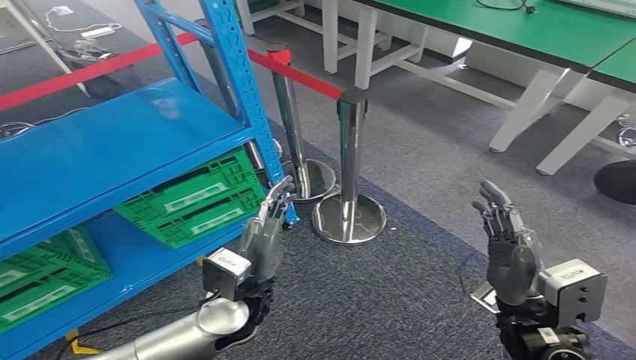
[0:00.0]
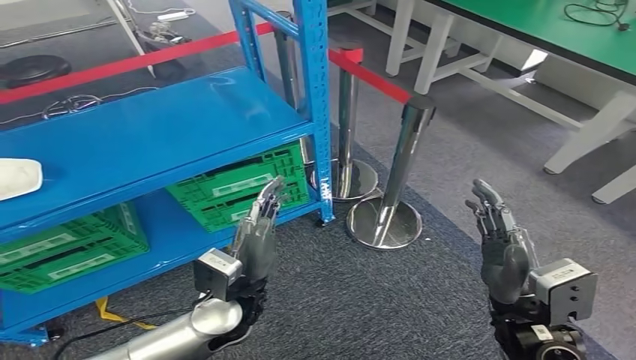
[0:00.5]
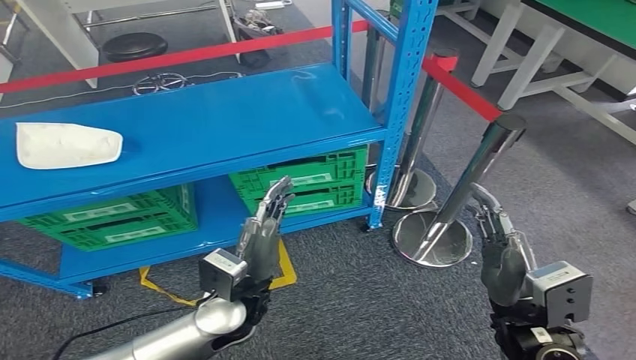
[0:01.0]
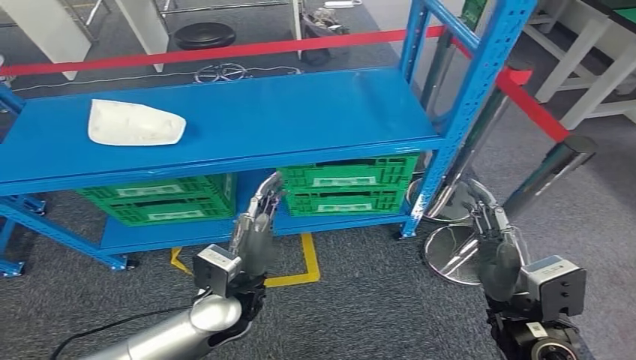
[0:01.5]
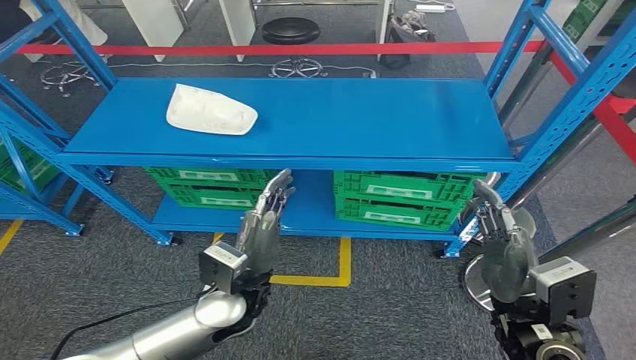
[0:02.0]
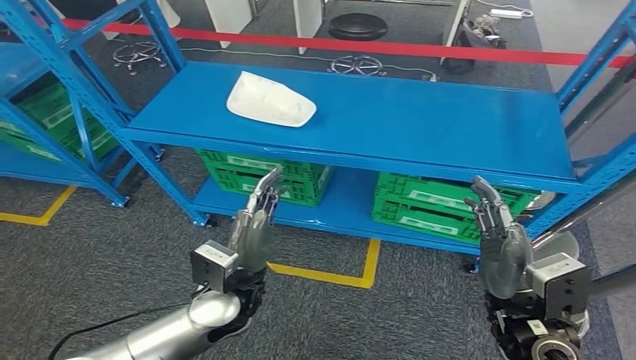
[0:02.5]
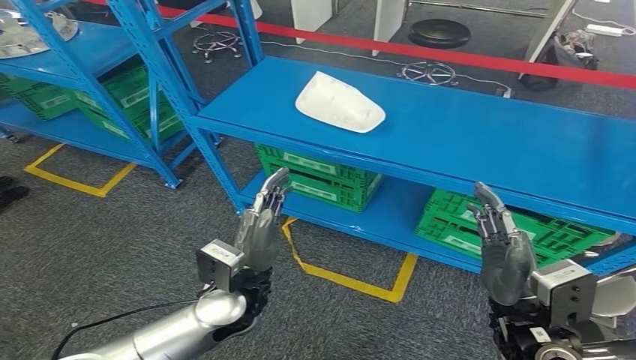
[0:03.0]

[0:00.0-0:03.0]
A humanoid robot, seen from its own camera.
Step, 0:00.0 to 0:03.0: Return to the initial position at the workbench.

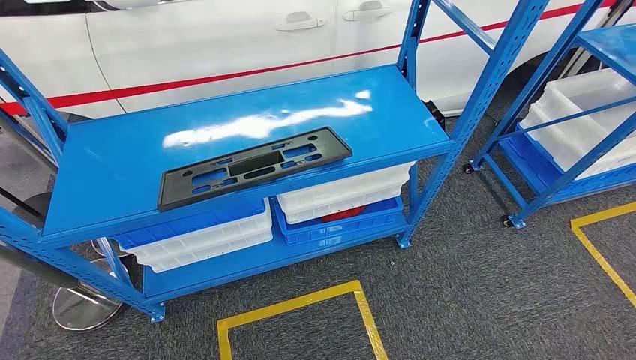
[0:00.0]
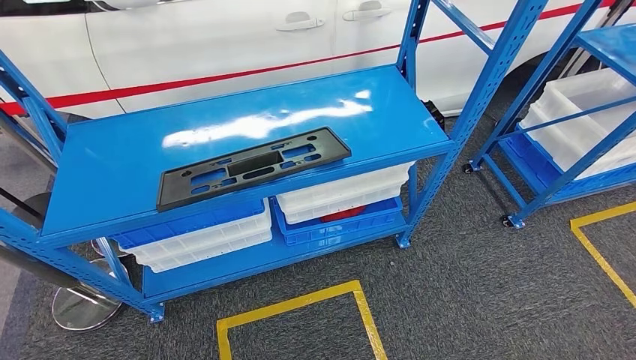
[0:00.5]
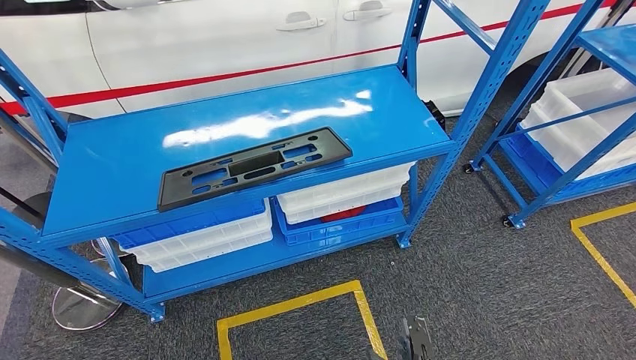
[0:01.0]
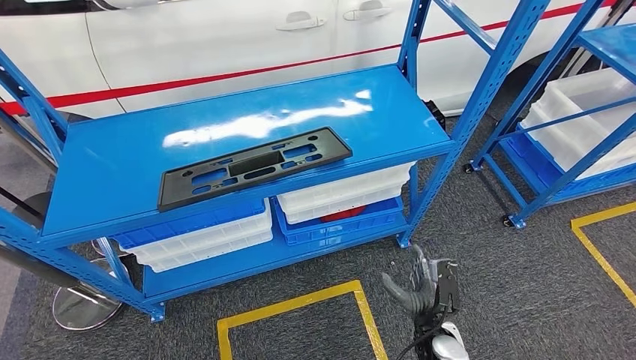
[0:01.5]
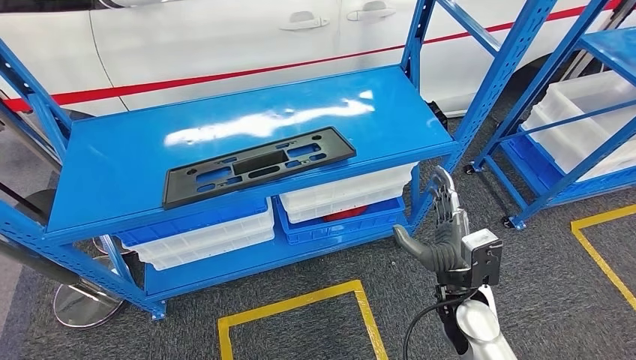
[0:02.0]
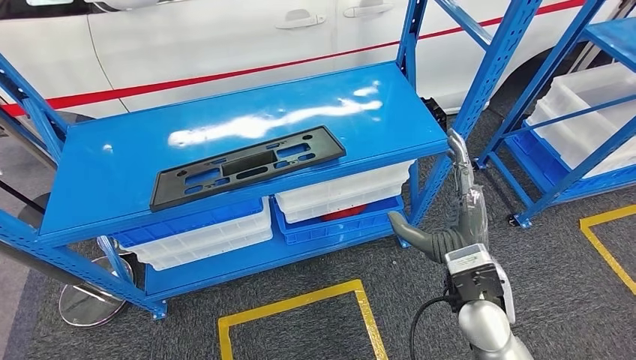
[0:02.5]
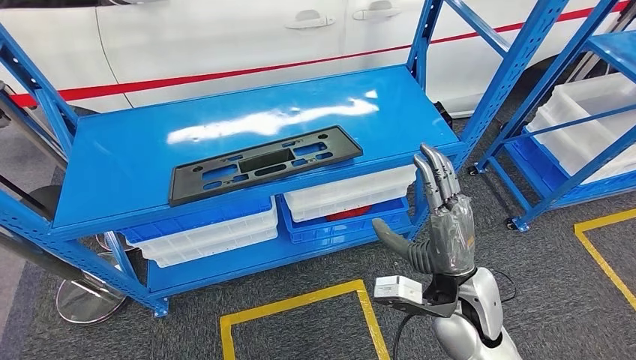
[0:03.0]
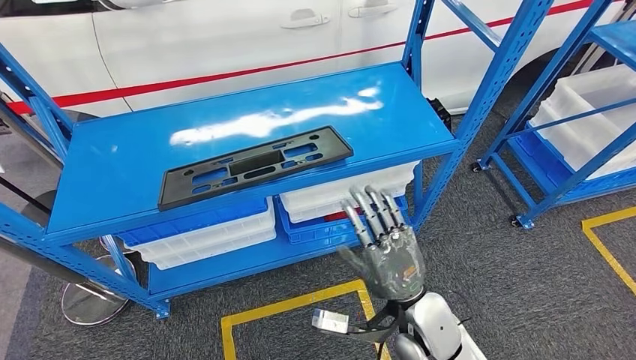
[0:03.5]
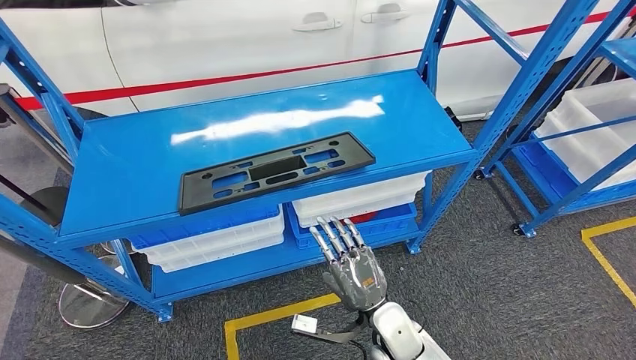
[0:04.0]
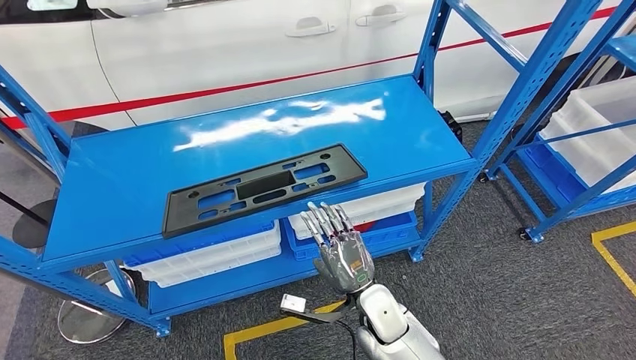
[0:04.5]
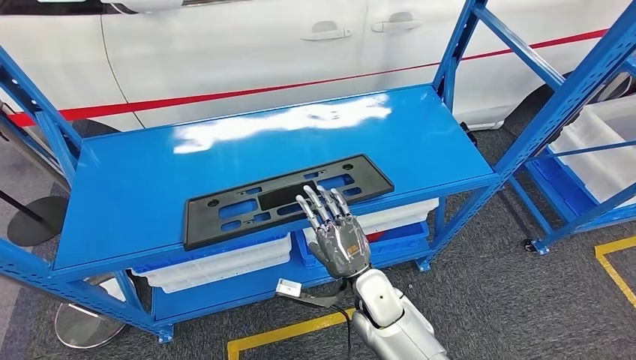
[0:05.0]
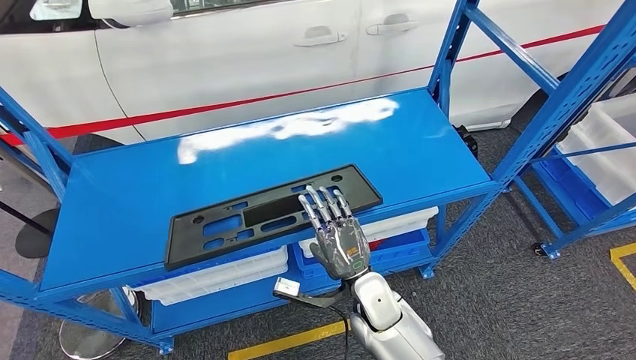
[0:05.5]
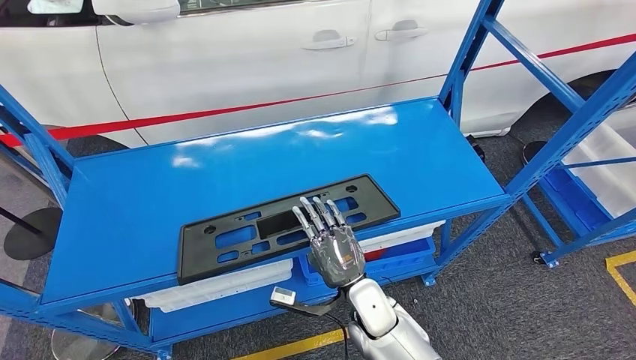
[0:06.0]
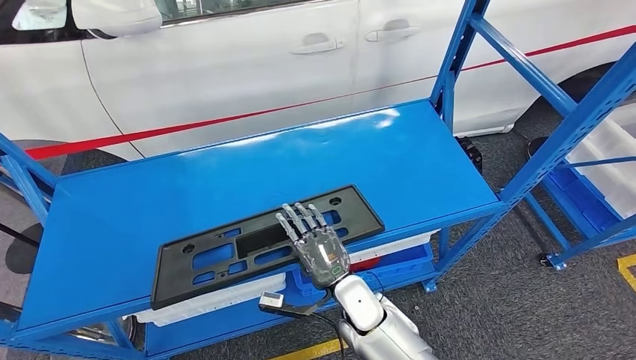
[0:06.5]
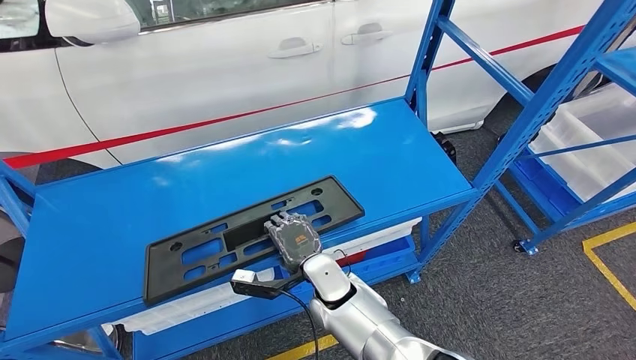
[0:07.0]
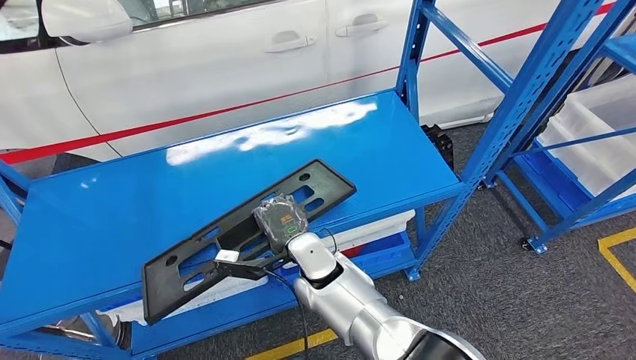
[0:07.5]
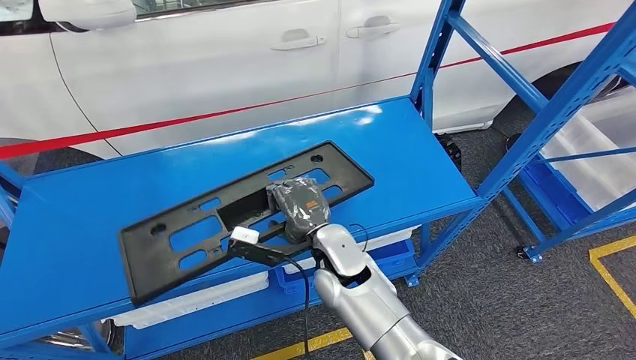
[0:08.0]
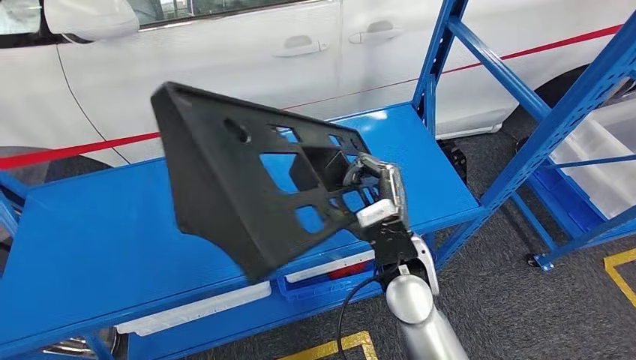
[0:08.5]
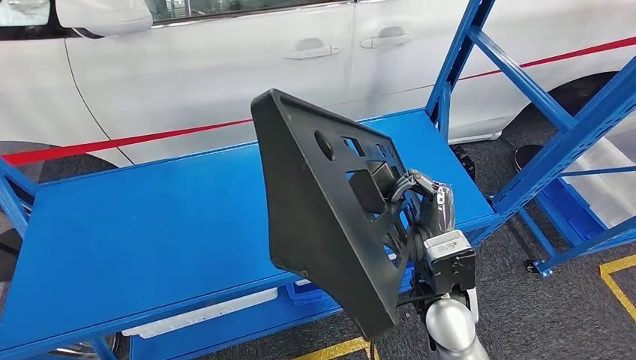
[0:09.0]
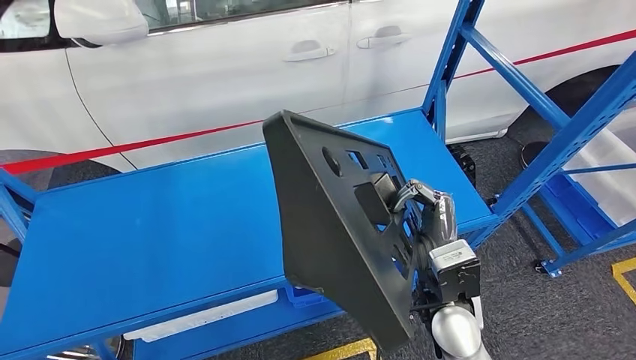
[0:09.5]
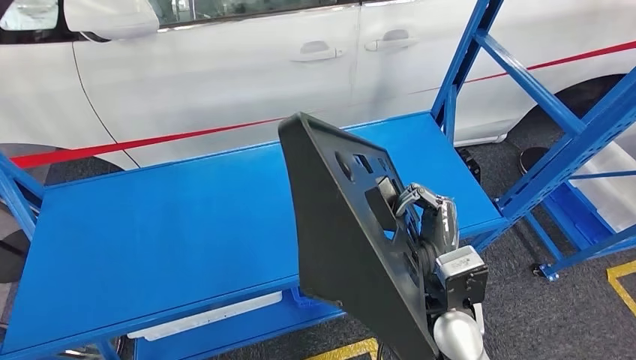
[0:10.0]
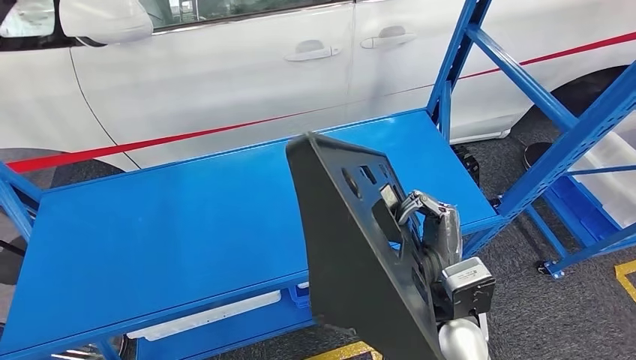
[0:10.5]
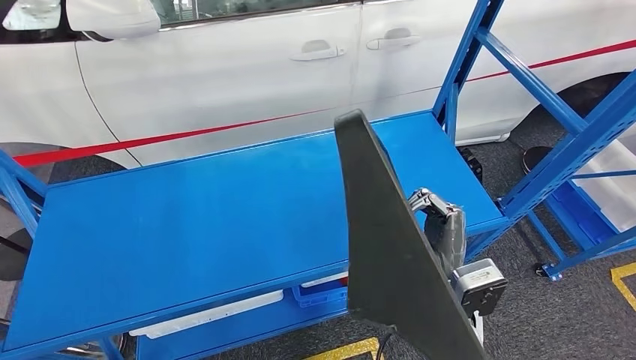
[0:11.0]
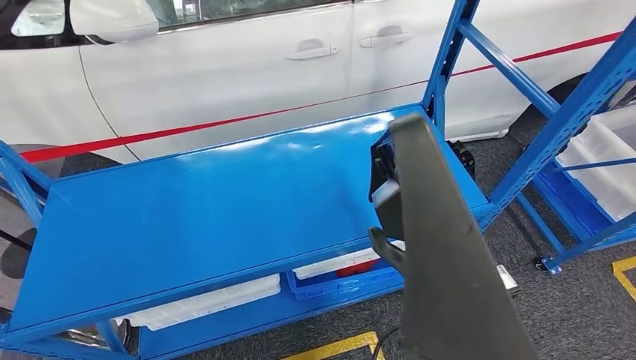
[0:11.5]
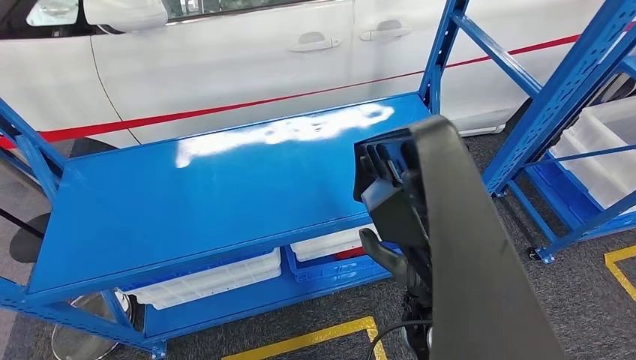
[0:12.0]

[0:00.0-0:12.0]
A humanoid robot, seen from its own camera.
Step, 0:00.0 to 0:08.5: Pick up the large parts from the shelf.

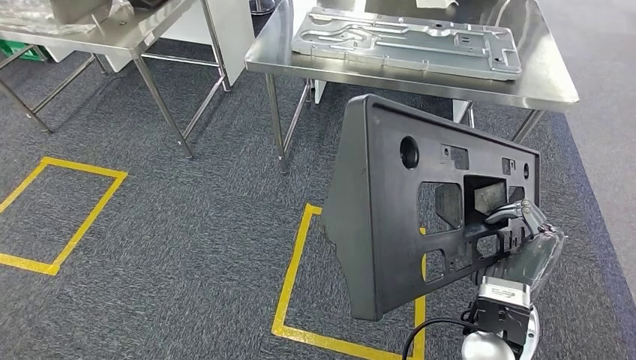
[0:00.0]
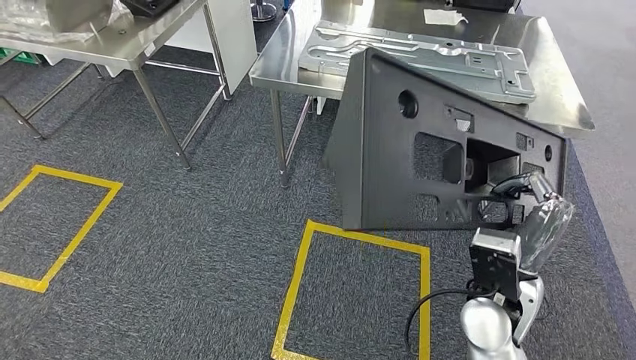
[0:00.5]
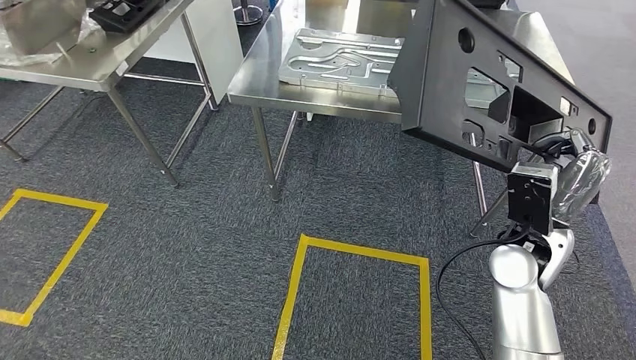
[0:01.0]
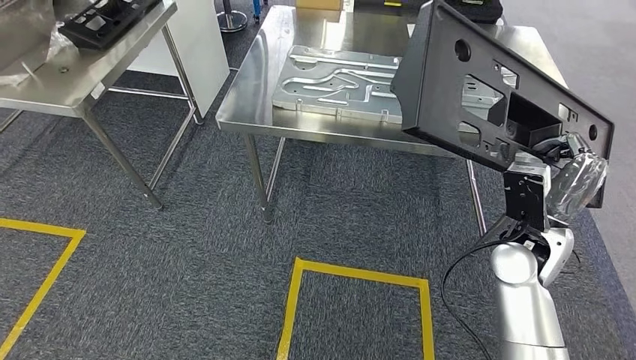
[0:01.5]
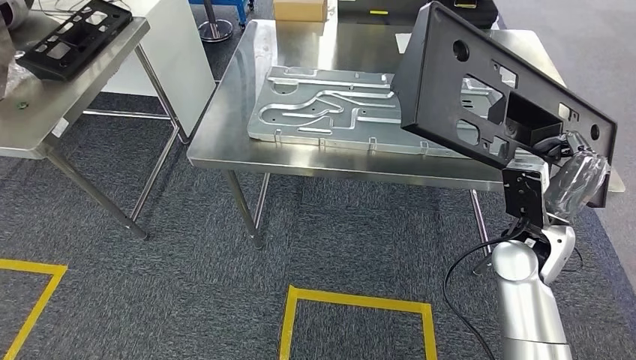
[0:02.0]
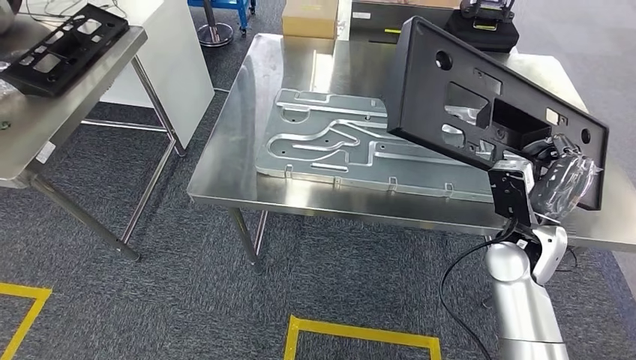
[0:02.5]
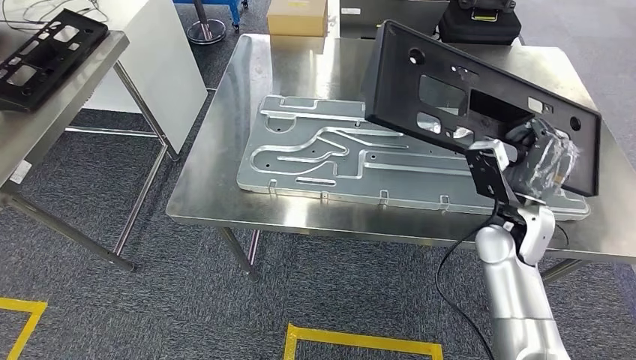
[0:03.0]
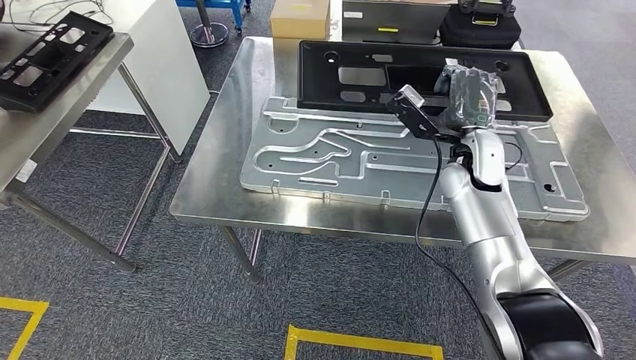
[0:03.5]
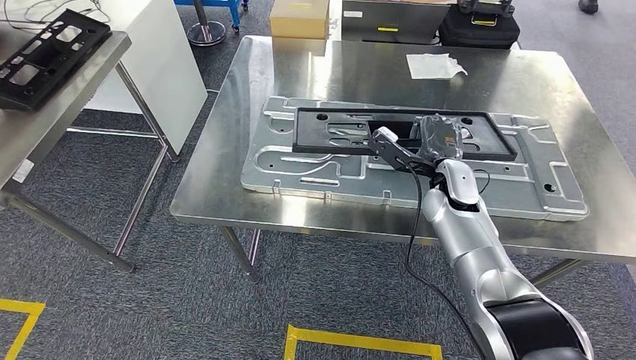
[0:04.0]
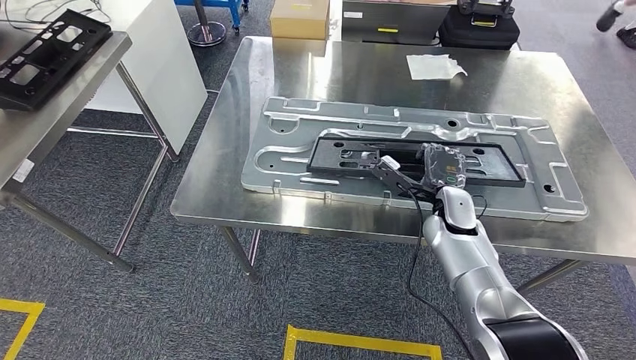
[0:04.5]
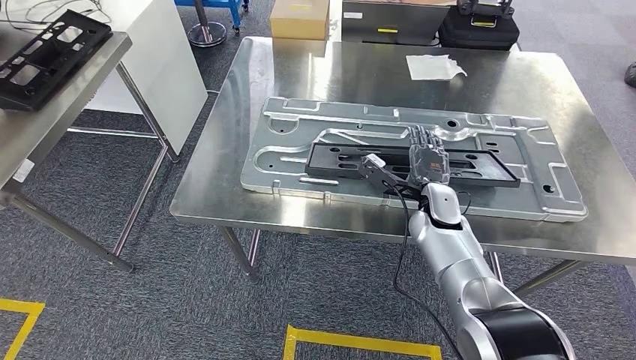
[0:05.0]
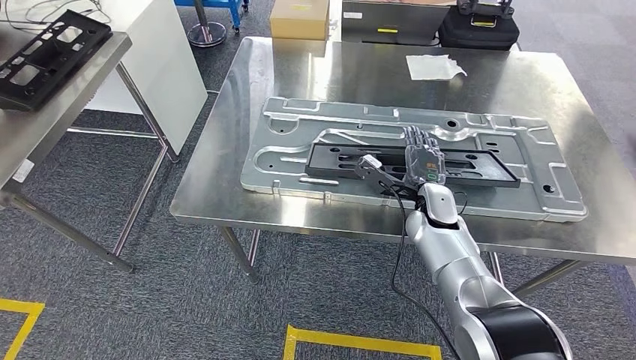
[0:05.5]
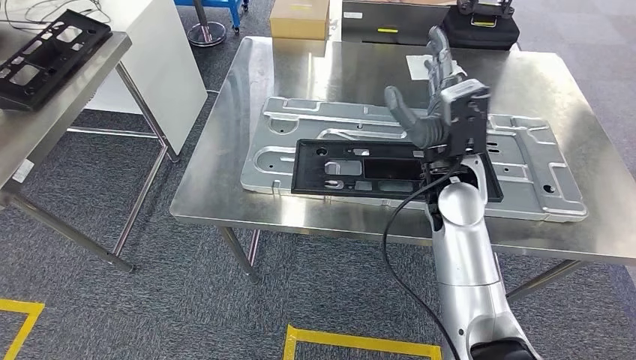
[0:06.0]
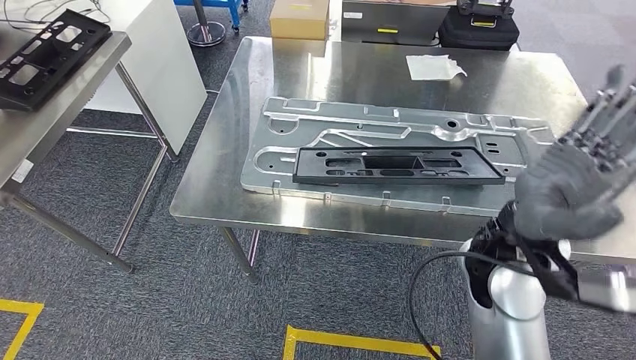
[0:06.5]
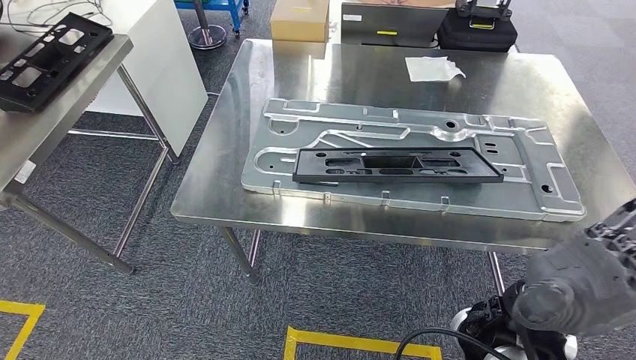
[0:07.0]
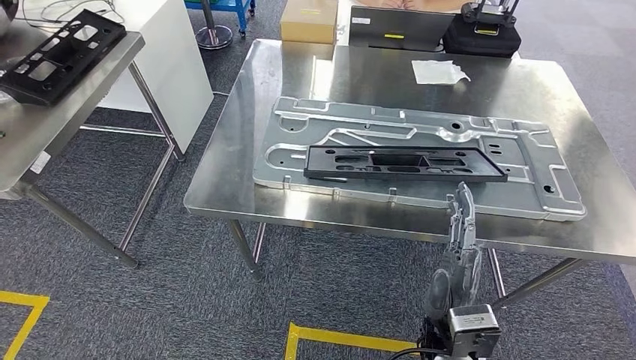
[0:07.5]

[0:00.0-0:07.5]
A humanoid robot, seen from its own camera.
Step, 0:00.0 to 0:04.0: Move the large parts to the workbench.
0:04.0 to 0:05.5: The right hand goes approximately 5 cm downward.
